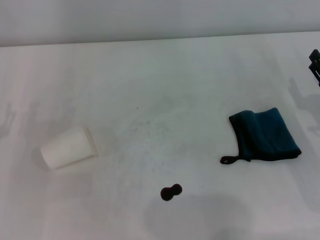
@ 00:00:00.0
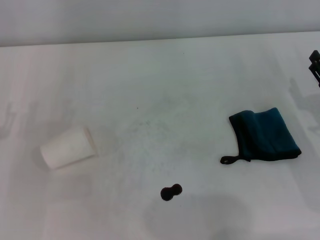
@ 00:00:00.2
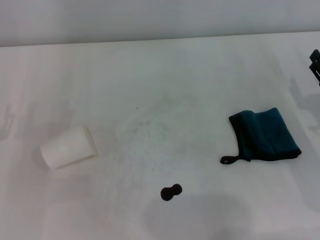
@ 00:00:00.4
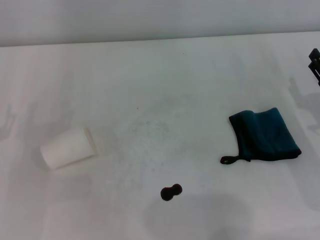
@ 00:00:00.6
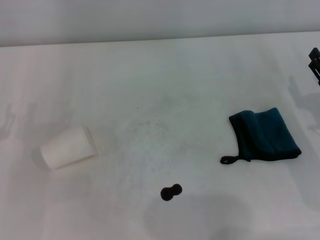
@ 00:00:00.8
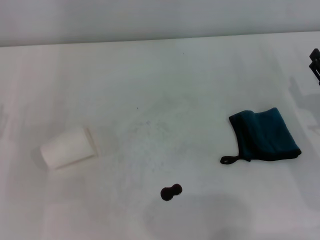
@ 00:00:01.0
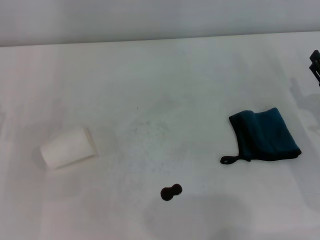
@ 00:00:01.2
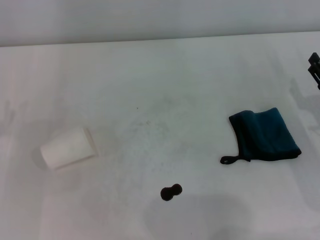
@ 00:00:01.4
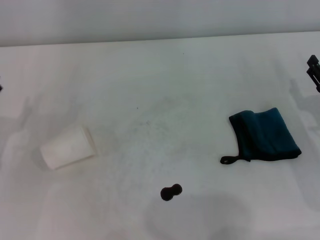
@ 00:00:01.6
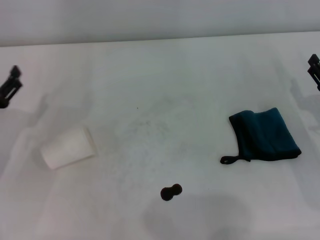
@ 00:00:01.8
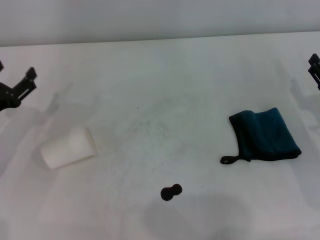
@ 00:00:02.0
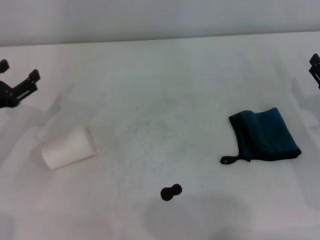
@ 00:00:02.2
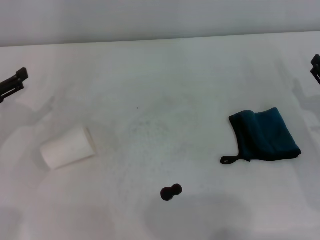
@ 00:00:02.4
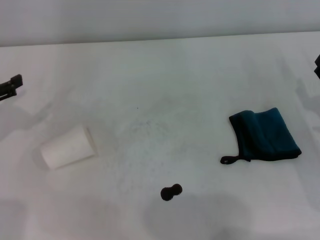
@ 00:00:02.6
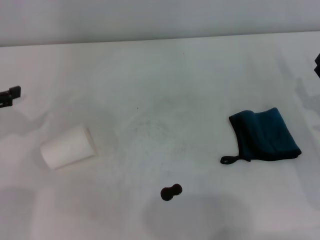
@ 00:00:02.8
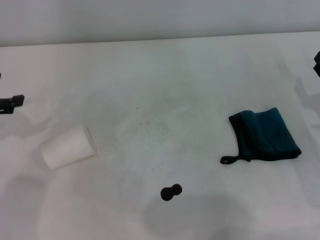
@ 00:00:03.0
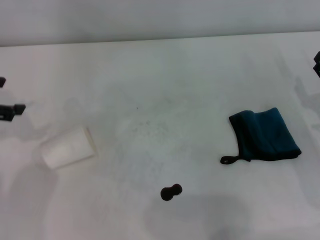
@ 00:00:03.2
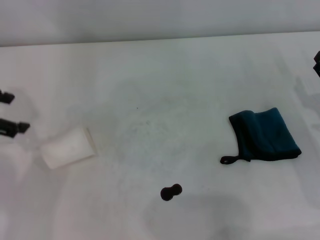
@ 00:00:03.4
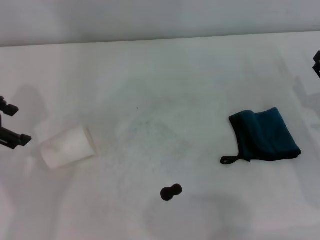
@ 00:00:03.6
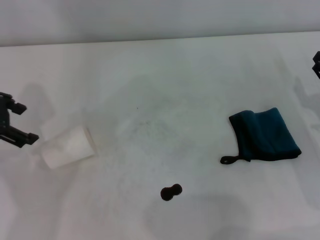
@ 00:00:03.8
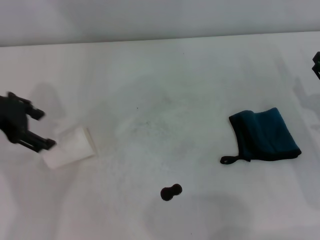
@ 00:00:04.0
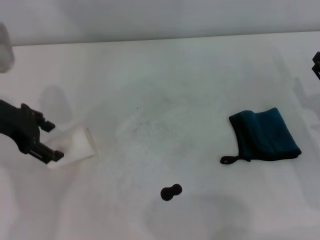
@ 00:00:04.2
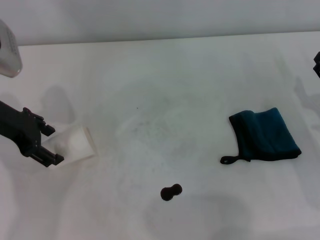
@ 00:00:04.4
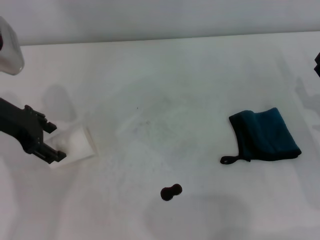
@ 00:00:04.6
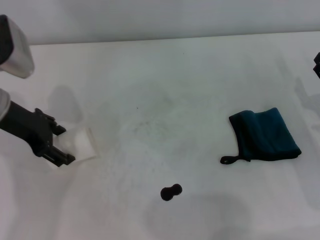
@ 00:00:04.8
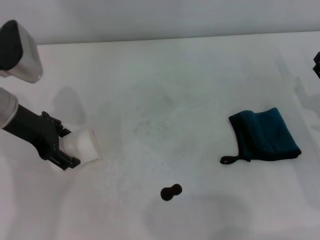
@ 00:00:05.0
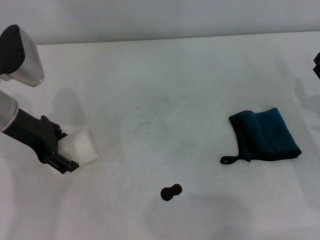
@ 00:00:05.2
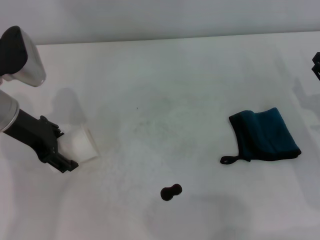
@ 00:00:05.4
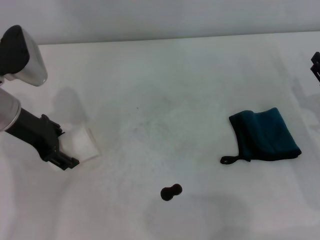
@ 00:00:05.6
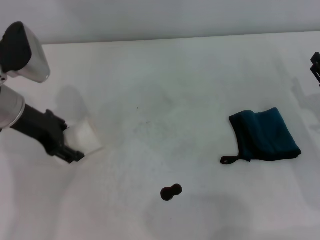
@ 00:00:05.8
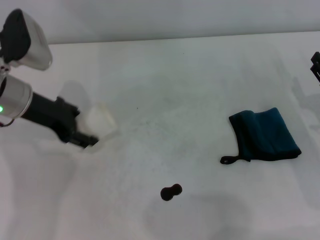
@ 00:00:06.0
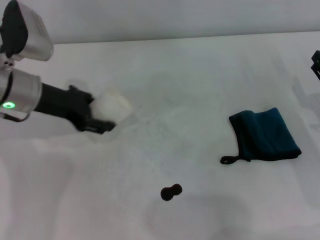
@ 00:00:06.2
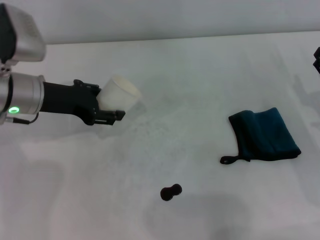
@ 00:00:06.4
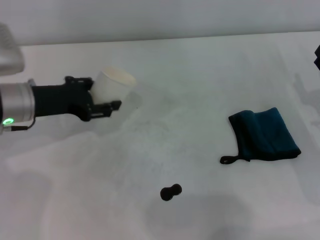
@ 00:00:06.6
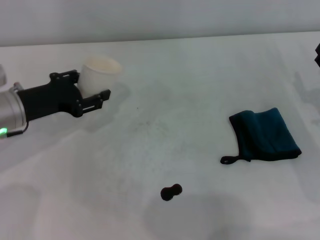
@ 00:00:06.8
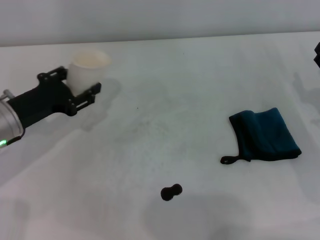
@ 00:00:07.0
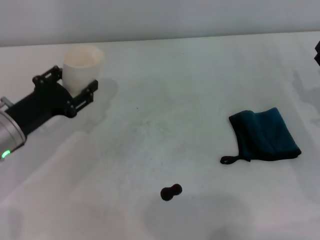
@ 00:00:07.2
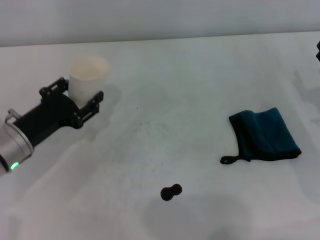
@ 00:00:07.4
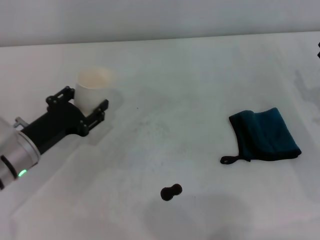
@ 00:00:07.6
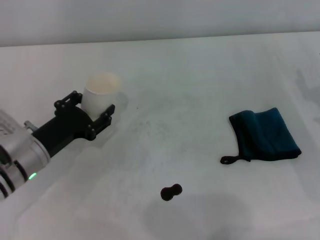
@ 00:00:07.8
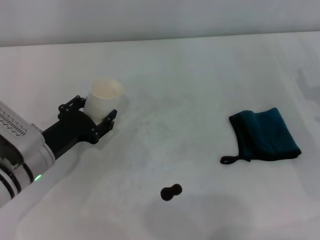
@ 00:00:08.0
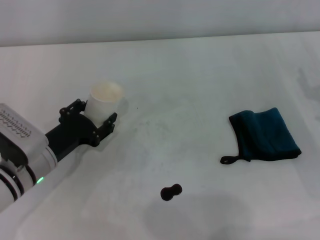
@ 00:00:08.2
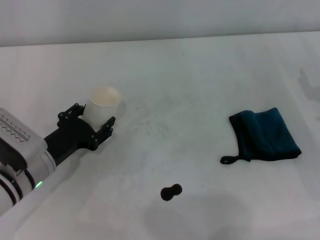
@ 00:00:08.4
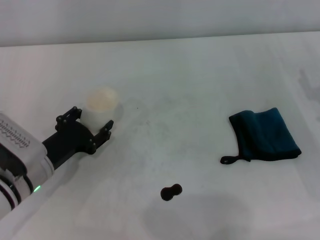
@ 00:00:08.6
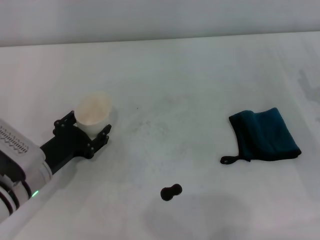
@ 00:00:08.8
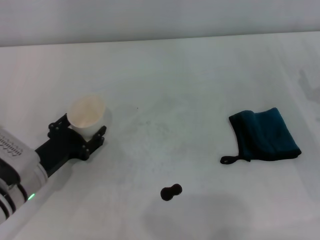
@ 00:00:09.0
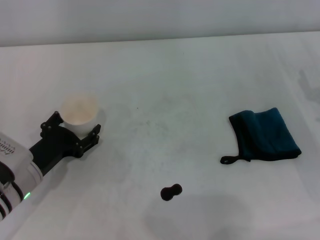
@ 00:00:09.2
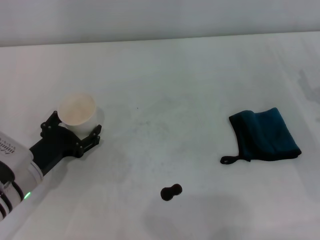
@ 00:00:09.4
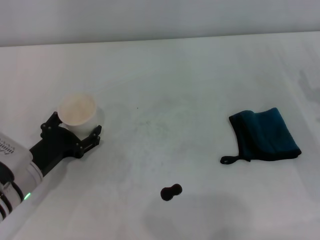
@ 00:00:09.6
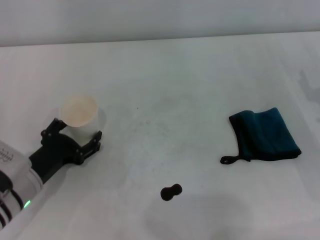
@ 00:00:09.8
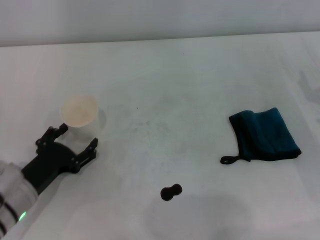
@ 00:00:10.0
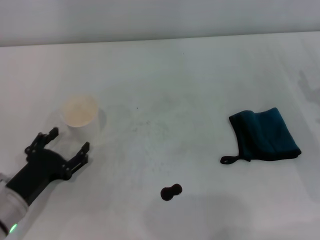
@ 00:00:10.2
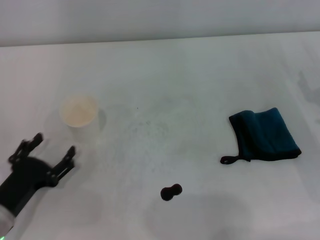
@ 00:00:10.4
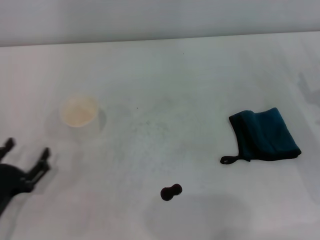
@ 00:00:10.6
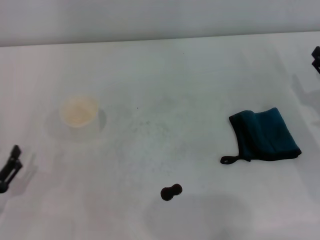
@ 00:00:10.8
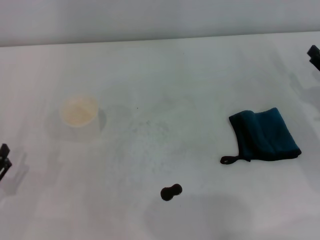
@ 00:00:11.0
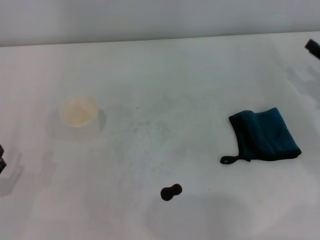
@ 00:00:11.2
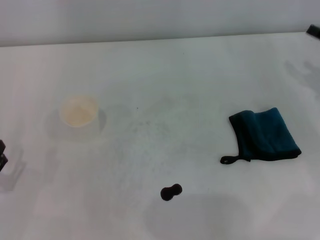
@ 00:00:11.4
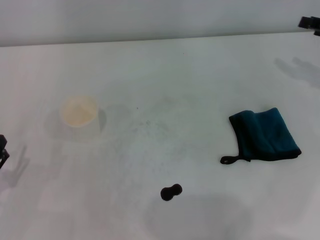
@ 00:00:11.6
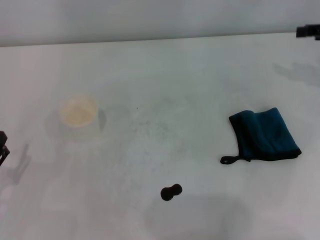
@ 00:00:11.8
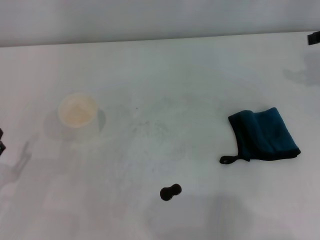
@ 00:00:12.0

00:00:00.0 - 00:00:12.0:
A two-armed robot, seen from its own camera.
Step, 00:00:00.0 - 00:00:05.6: Grasp the paper cup with the left gripper.
Step, 00:00:05.8 - 00:00:09.2: Stand the paper cup upright with the left gripper.
00:00:03.0 - 00:00:04.4: The left gripper goes some 10 cm to the right.
00:00:04.4 - 00:00:06.0: The left gripper closes its fingers.
00:00:06.0 - 00:00:07.6: The left gripper shifts about 15 cm downward and backward, and closes its fingers.
00:00:07.6 - 00:00:09.0: The grippers stay close to where they were, moving slightly.
00:00:09.0 - 00:00:10.4: The left gripper goes some 5 cm backward, and opens.
00:00:10.4 - 00:00:12.0: The right gripper shifts about 20 cm upward and forward, while the left gripper goes some 5 cm to the left.

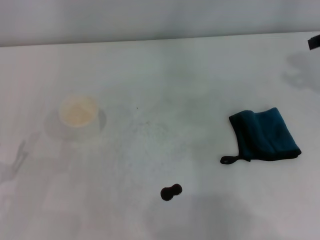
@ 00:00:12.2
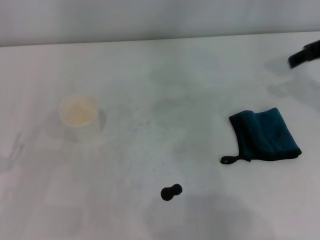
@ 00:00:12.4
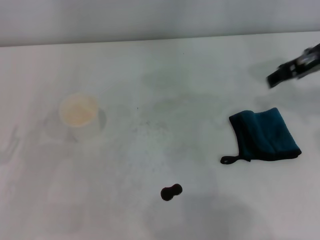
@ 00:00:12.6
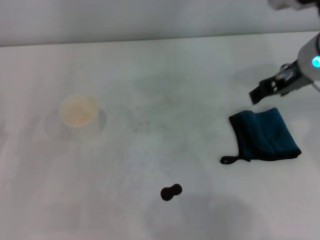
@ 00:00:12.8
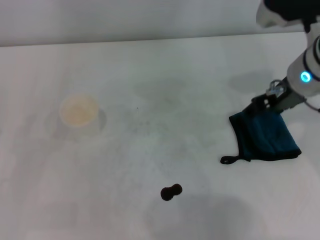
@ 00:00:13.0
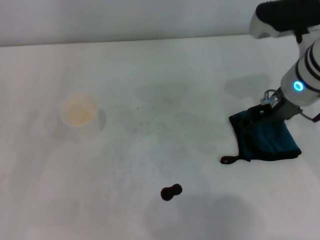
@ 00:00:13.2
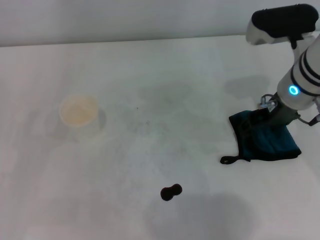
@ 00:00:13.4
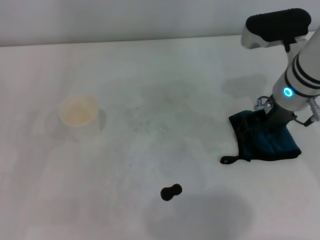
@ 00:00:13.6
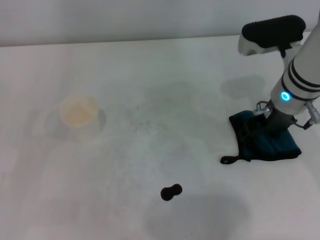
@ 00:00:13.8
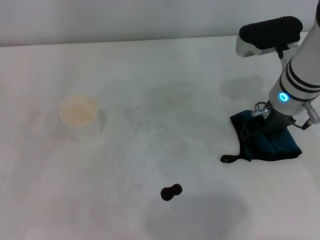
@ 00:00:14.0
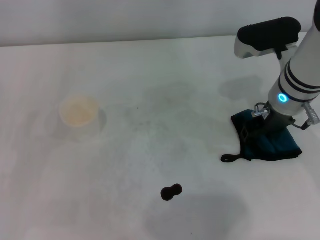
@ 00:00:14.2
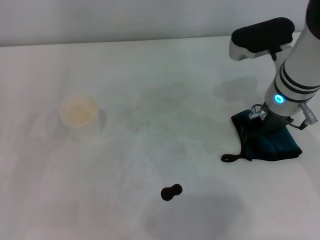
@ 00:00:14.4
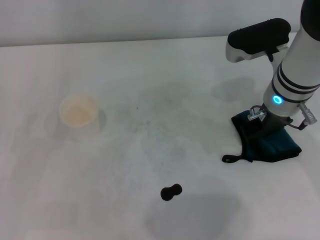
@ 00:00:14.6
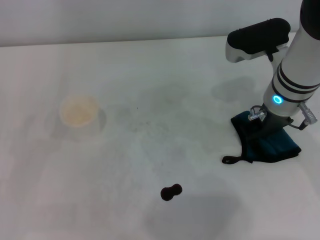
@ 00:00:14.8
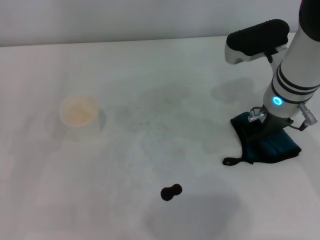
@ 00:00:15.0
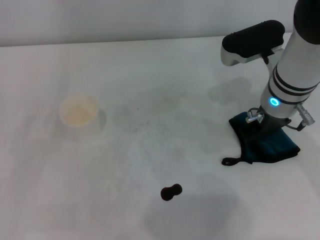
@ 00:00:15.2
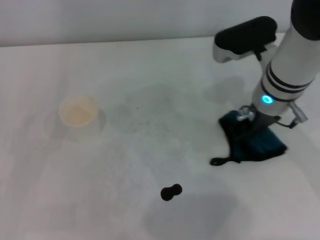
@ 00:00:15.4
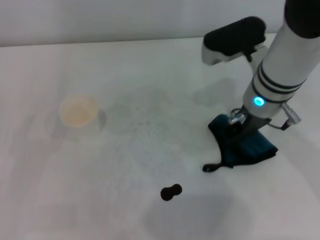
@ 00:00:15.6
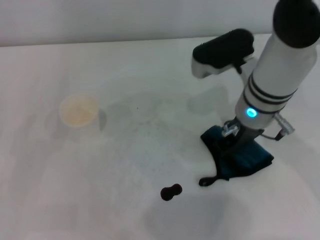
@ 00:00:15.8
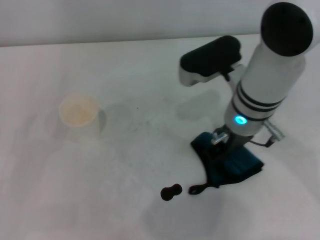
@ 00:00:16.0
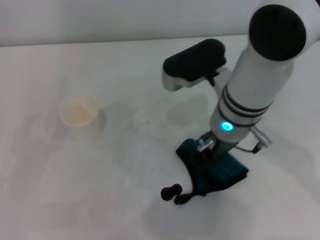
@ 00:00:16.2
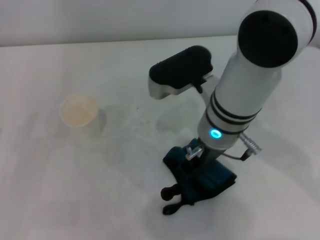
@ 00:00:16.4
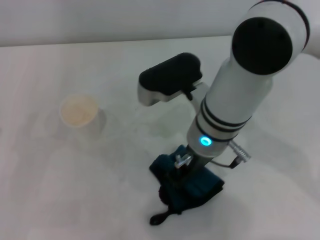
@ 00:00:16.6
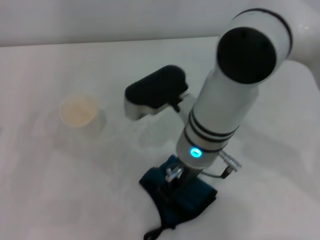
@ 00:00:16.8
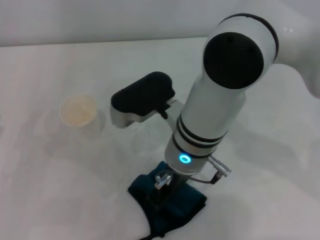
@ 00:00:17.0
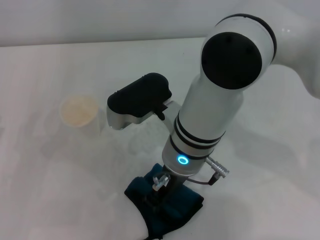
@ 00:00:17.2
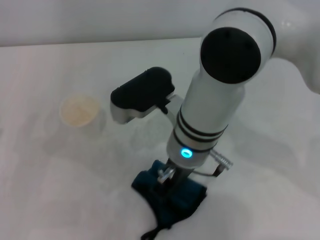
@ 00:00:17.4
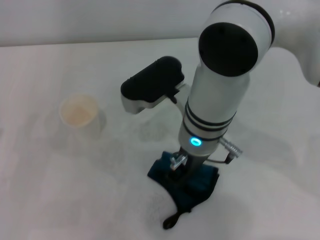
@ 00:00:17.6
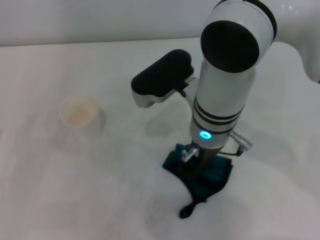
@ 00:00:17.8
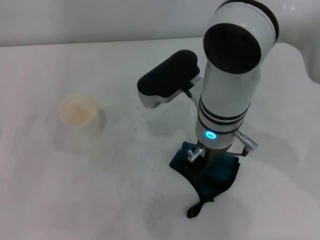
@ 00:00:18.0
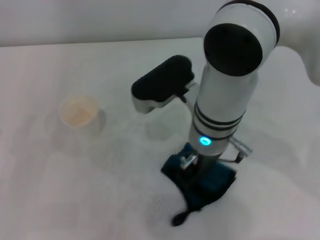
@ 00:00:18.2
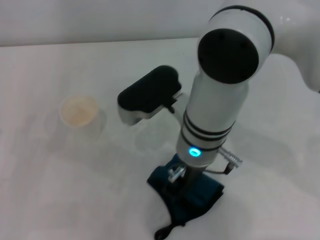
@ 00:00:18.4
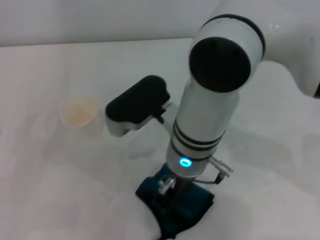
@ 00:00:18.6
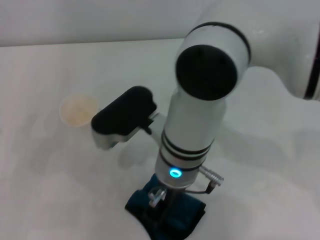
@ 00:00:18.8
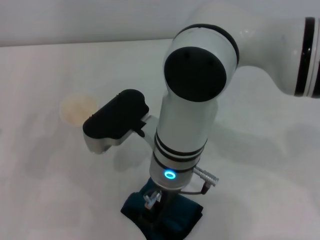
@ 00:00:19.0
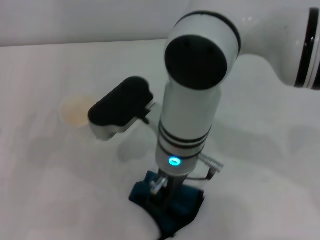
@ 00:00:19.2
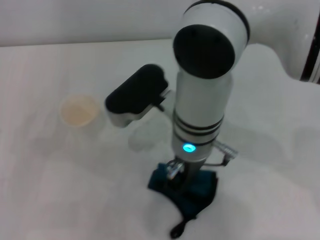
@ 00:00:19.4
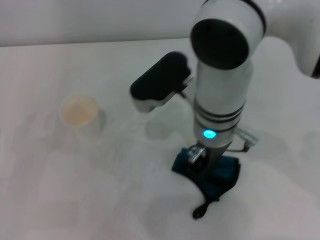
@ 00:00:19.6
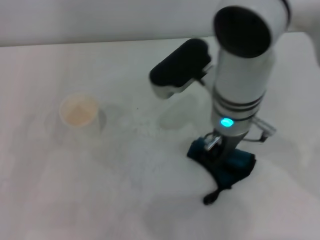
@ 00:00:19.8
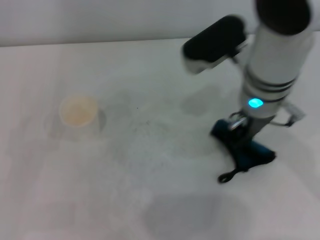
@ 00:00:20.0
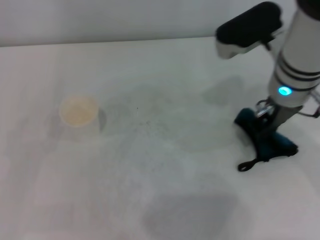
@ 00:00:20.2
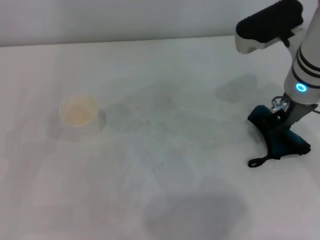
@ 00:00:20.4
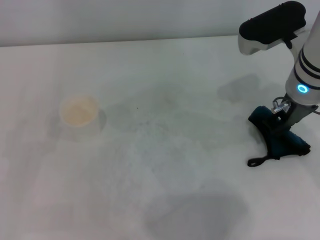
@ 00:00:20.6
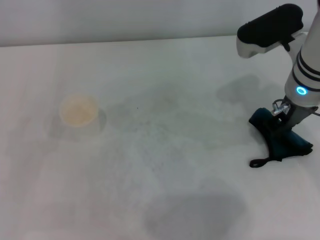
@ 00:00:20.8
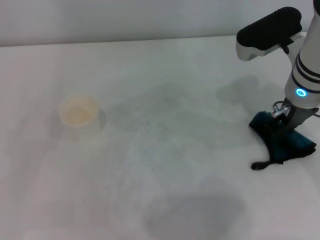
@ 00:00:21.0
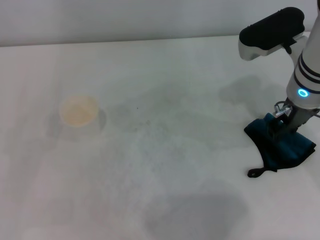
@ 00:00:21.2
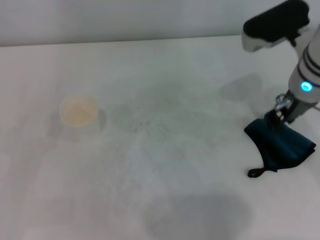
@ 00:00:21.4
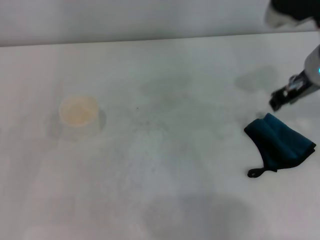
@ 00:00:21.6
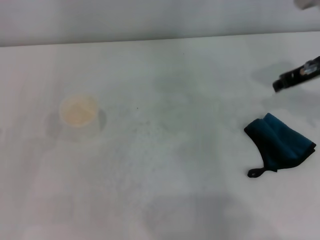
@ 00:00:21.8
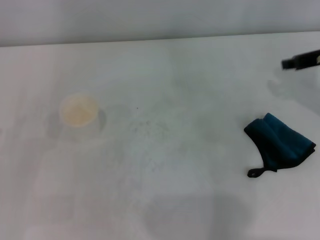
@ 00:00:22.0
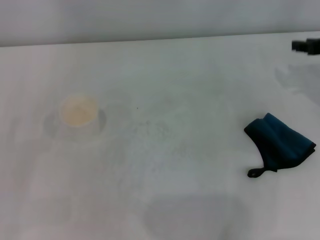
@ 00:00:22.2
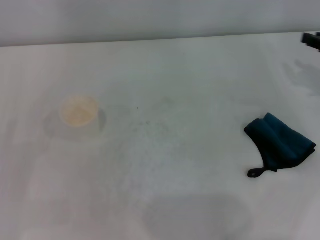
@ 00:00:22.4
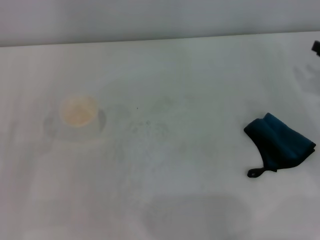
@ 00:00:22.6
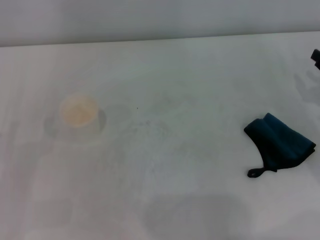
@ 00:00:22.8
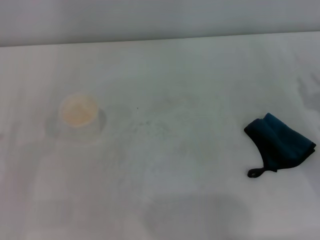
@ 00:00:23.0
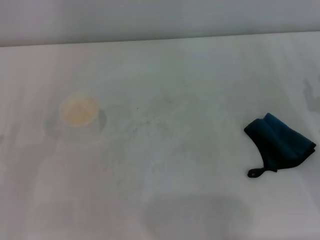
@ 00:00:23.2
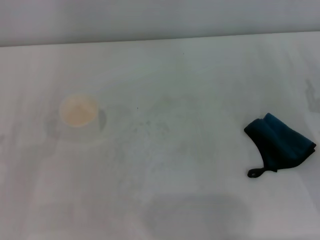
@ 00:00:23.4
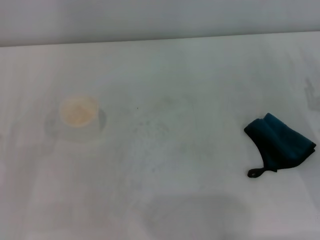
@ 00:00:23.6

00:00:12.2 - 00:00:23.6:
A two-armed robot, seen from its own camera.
Step, 00:00:12.2 - 00:00:15.0: Grasp the rag with the right gripper.
Step, 00:00:15.4 - 00:00:20.2: Wipe the stains off the table with the right gripper.
Step, 00:00:20.4 - 00:00:21.0: Place the rag on the table with the right gripper.
00:00:12.2 - 00:00:13.6: The right gripper heads to the left and downward, covering about 15 cm.
00:00:13.6 - 00:00:15.0: The right gripper closes its fingers.
00:00:15.0 - 00:00:16.4: The right gripper is displaced to the left by some 10 cm.
00:00:16.4 - 00:00:17.8: The grippers make only small movements.
00:00:19.4 - 00:00:20.8: The right gripper goes roughly 15 cm to the right.
00:00:20.8 - 00:00:22.2: The right gripper goes roughly 15 cm to the right, and opens up.
00:00:22.2 - 00:00:23.6: The right gripper goes some 15 cm downward and backward.
